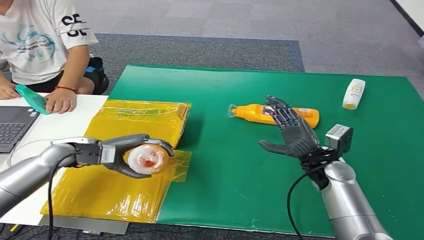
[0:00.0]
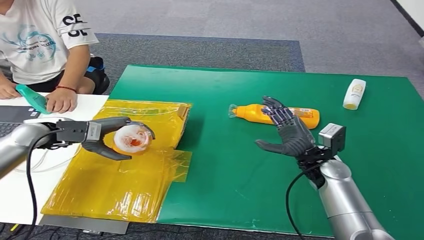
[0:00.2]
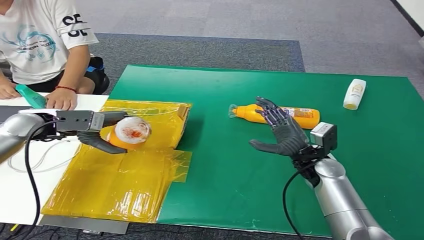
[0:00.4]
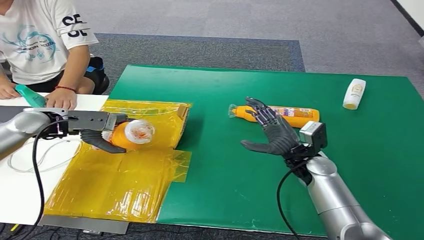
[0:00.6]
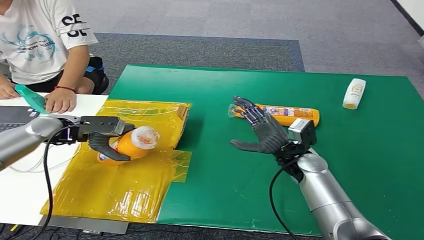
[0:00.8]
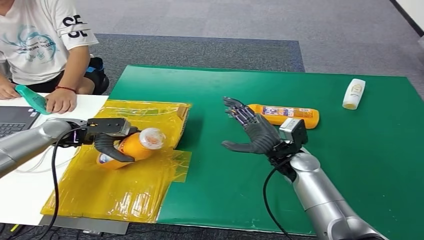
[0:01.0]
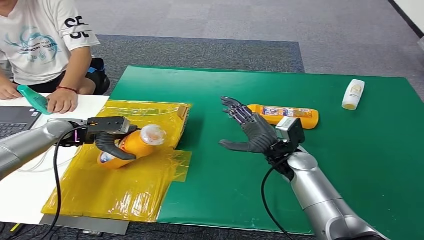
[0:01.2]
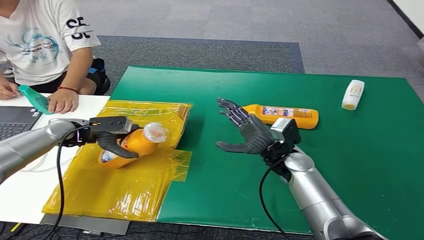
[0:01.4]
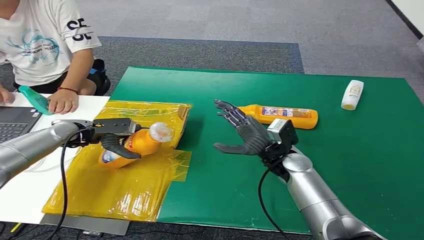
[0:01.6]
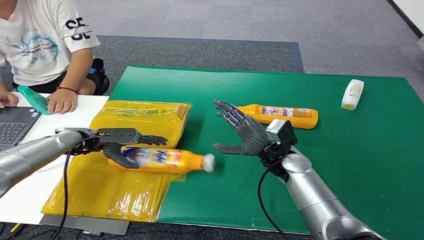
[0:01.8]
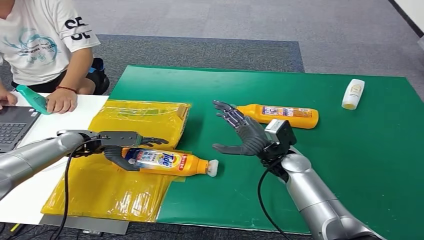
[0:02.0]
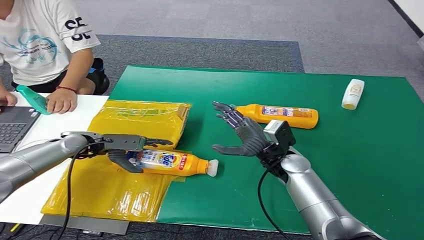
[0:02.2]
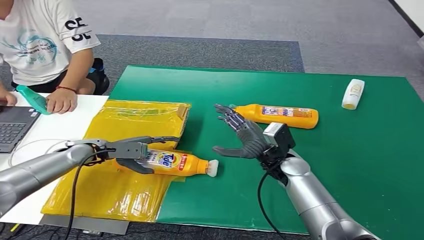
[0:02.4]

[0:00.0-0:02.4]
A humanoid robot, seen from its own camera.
Step, 0:00.0 to 0:02.2: Turn the bottle to the front side.
0:01.2 to 0:02.4: The left hand shifts about 5 cm downward.
